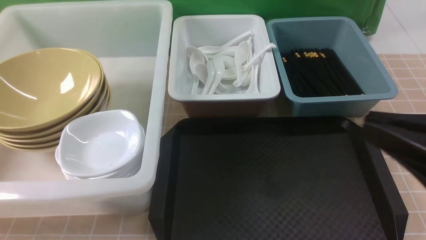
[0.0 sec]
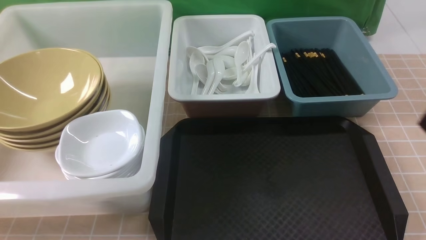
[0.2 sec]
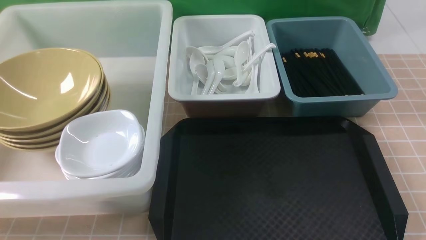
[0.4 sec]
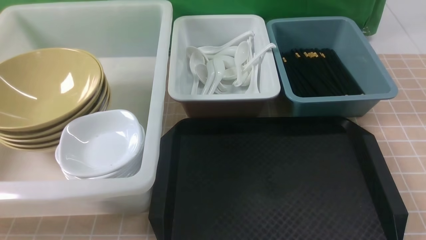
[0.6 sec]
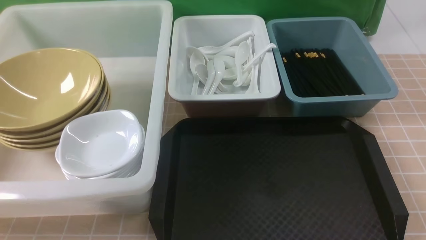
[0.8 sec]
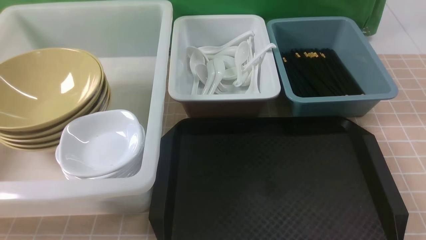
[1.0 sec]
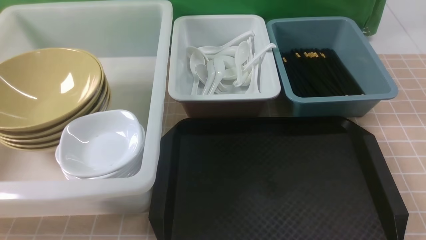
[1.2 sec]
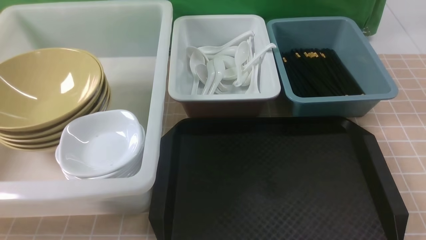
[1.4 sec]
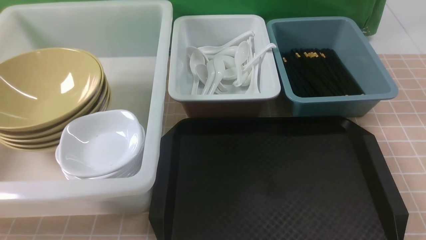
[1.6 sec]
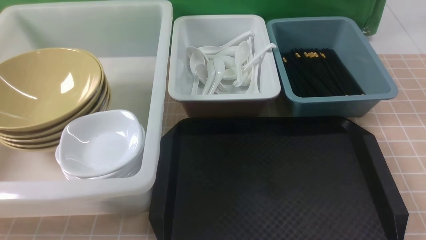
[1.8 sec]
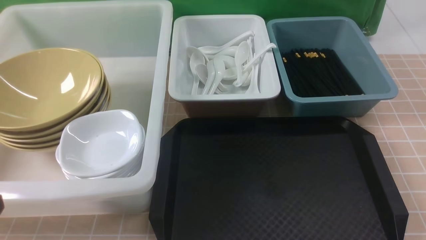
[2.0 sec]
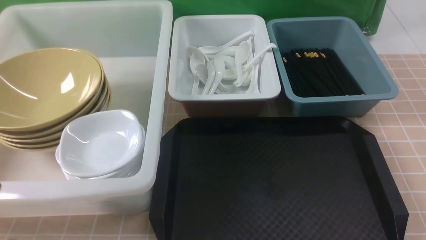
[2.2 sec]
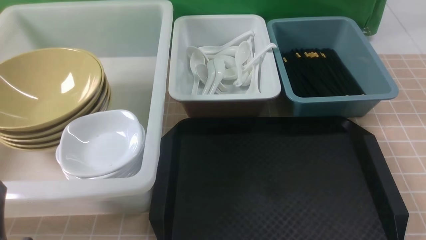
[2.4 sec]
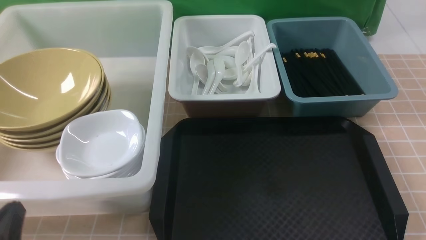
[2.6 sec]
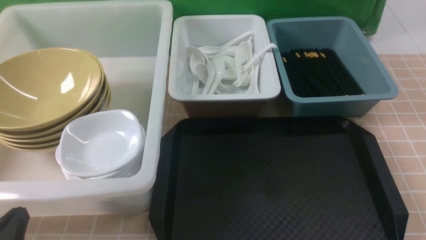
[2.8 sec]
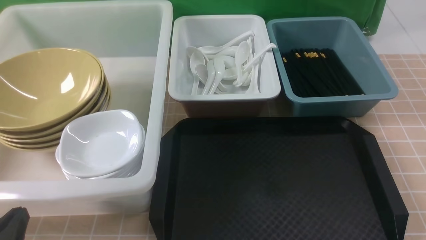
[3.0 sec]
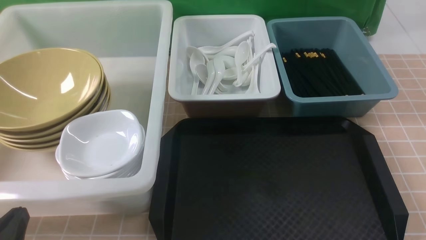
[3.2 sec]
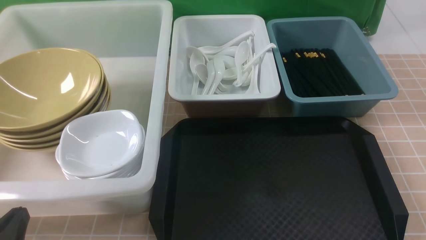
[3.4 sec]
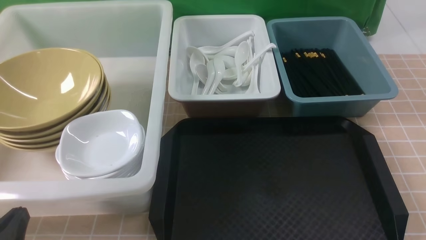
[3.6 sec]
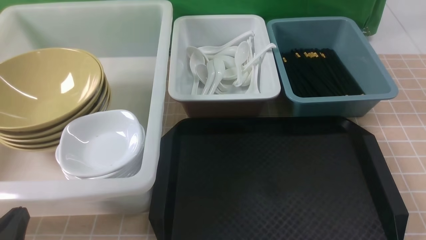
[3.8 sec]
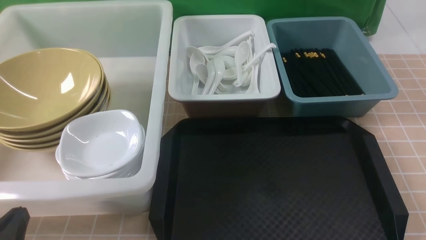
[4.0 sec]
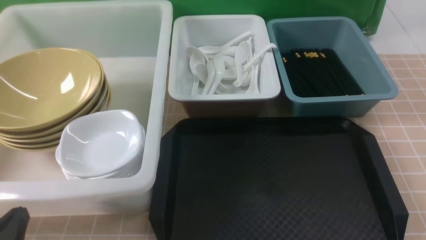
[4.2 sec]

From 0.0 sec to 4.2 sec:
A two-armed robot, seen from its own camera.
Task of the whole recording: on brown table put chopsticks spoon bowls plates into blue grey white boxes.
From 0.0 sec to 1.4 sec: The right gripper is displaced downward and to the right by roughly 20 cm.
From 1.4 sec to 2.8 sec: The left gripper heads downward, covering about 10 cm.
From 2.8 sec to 4.2 sec: Neither gripper changes place.

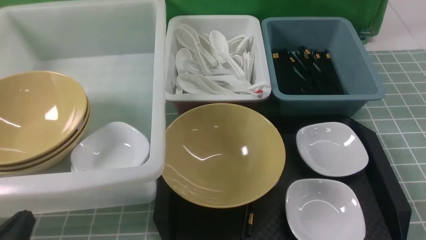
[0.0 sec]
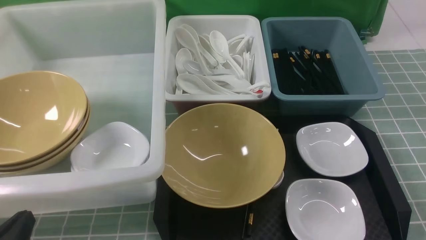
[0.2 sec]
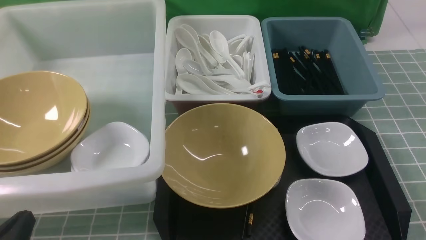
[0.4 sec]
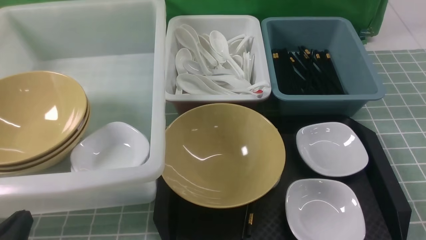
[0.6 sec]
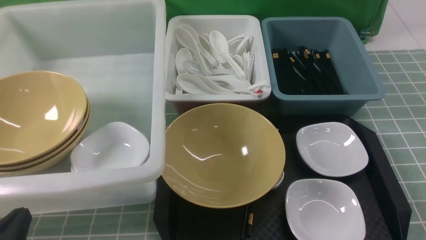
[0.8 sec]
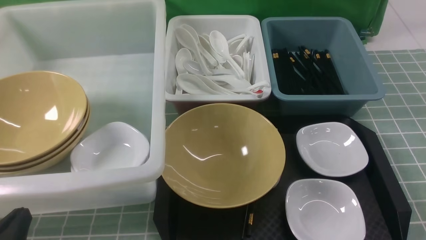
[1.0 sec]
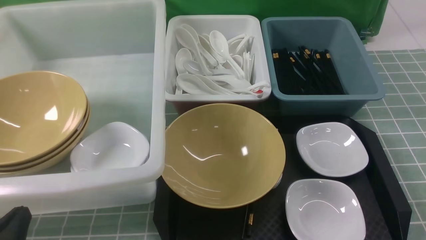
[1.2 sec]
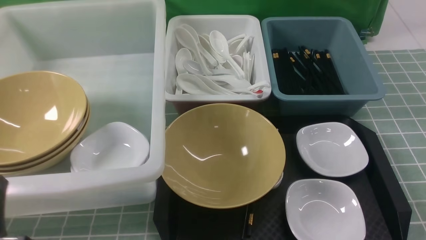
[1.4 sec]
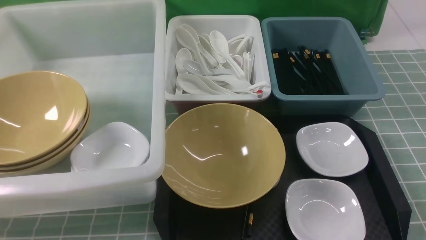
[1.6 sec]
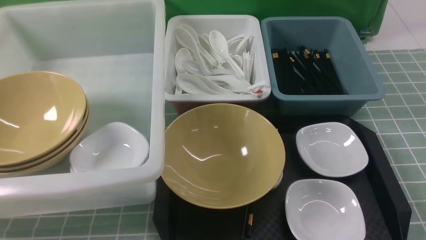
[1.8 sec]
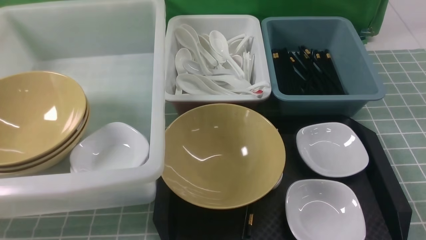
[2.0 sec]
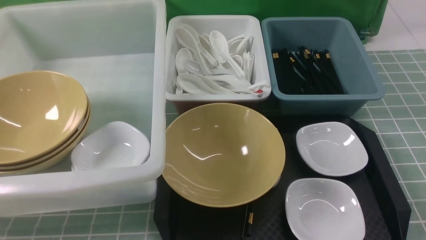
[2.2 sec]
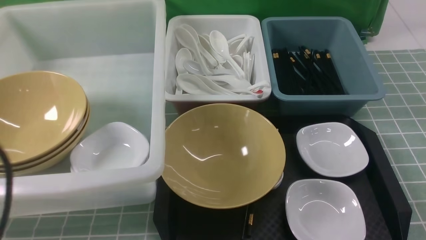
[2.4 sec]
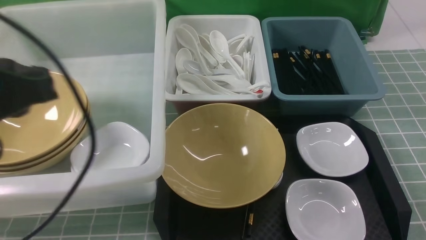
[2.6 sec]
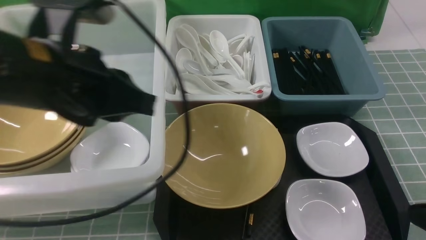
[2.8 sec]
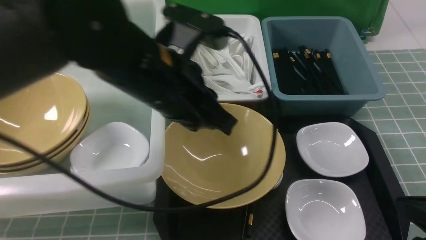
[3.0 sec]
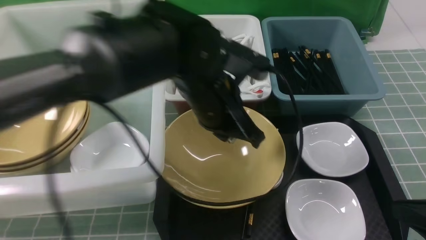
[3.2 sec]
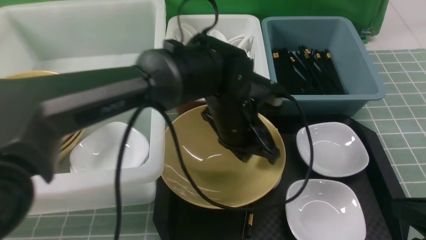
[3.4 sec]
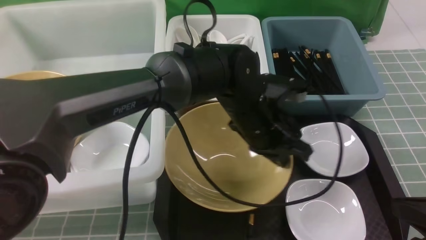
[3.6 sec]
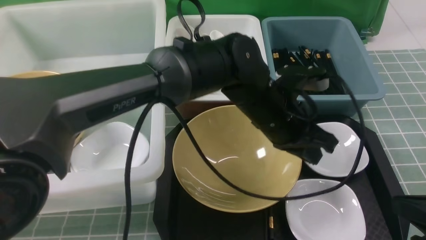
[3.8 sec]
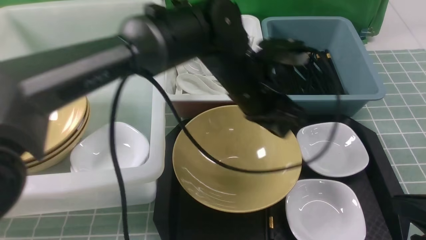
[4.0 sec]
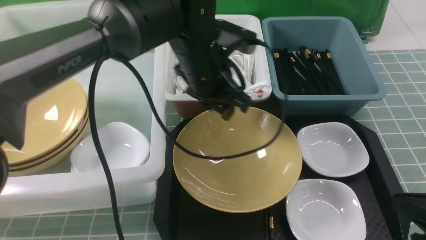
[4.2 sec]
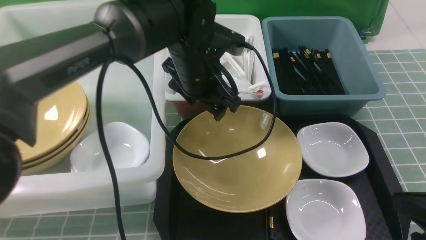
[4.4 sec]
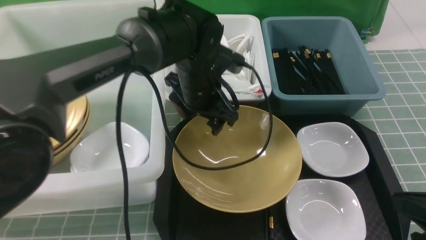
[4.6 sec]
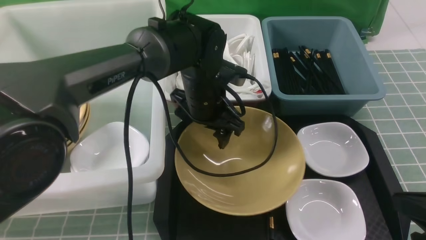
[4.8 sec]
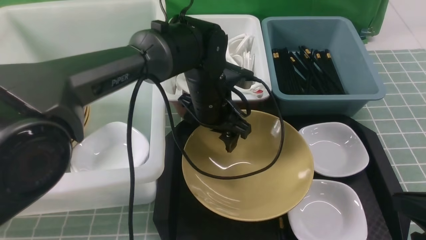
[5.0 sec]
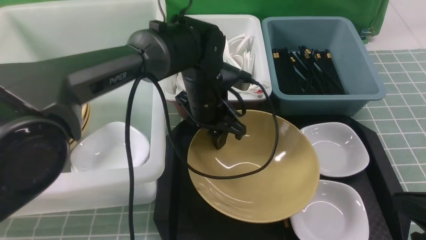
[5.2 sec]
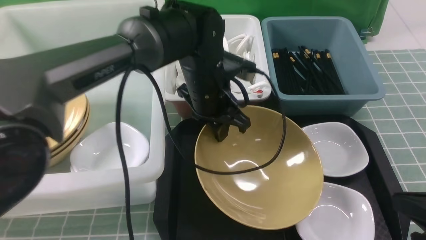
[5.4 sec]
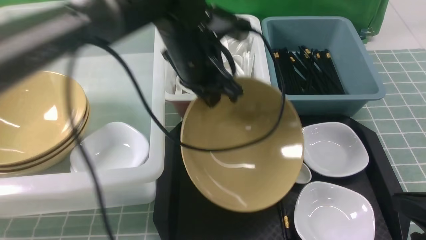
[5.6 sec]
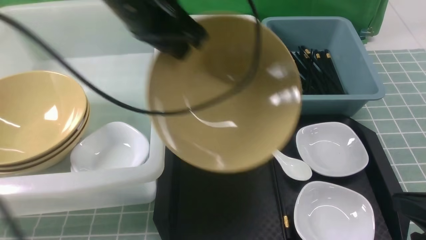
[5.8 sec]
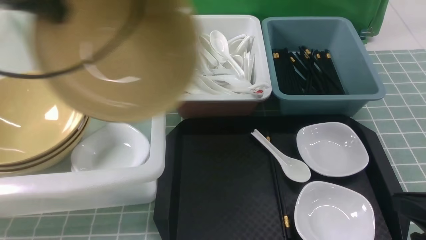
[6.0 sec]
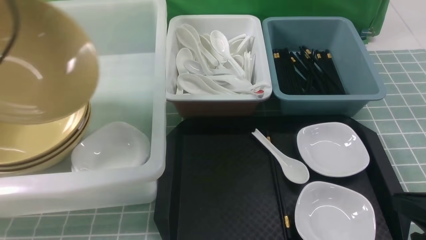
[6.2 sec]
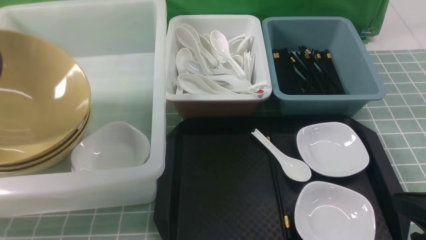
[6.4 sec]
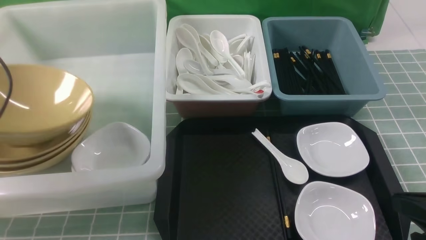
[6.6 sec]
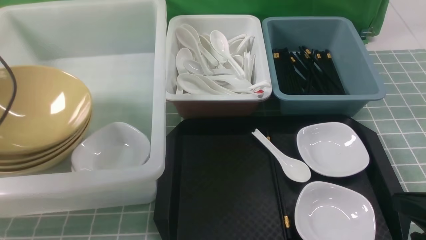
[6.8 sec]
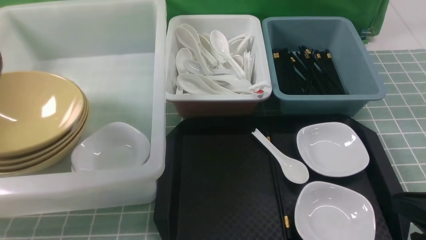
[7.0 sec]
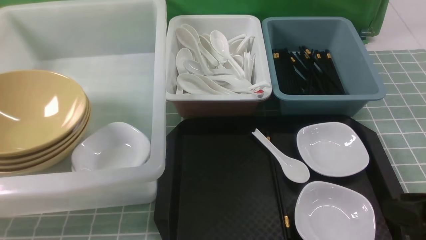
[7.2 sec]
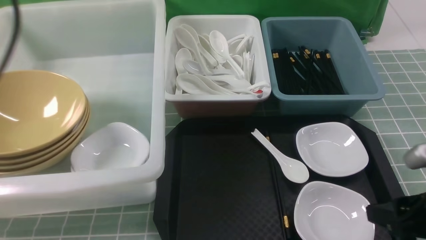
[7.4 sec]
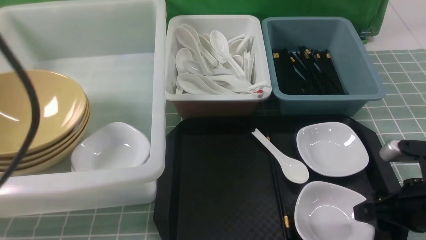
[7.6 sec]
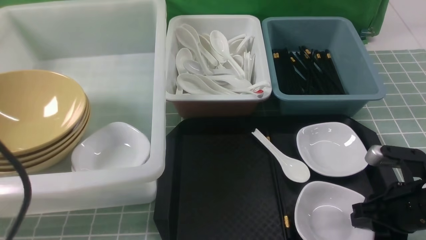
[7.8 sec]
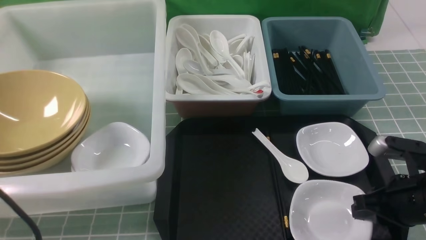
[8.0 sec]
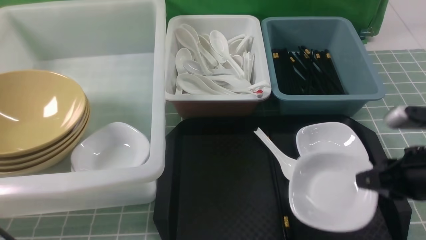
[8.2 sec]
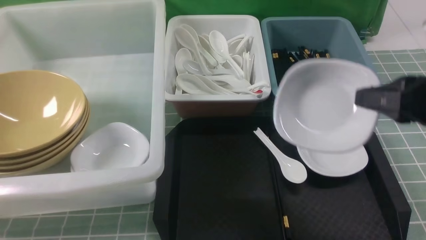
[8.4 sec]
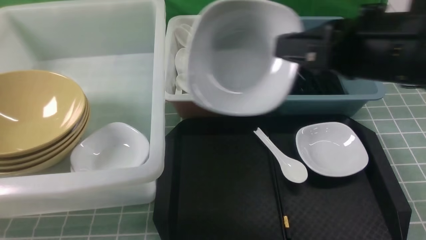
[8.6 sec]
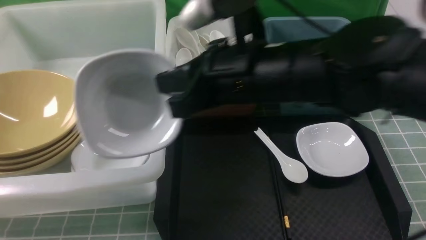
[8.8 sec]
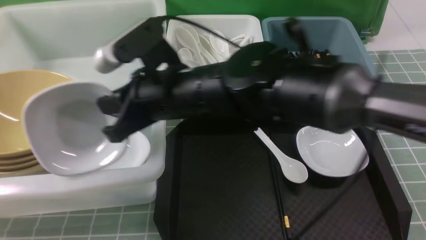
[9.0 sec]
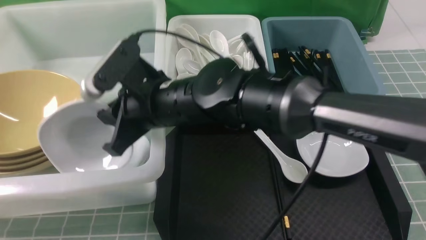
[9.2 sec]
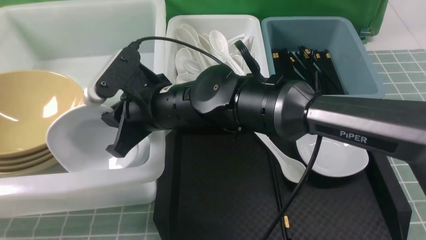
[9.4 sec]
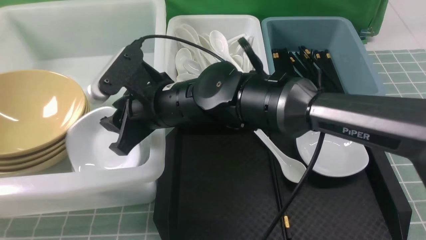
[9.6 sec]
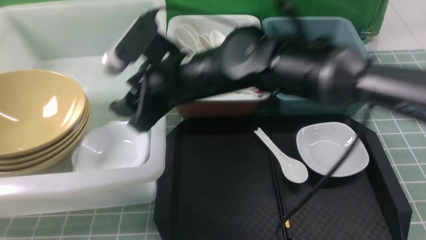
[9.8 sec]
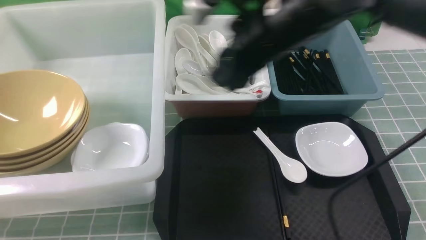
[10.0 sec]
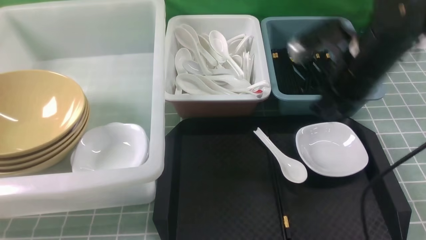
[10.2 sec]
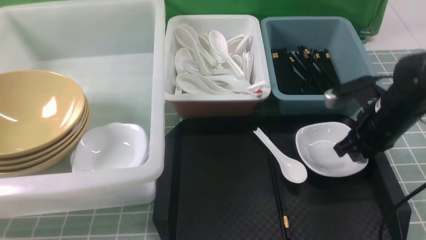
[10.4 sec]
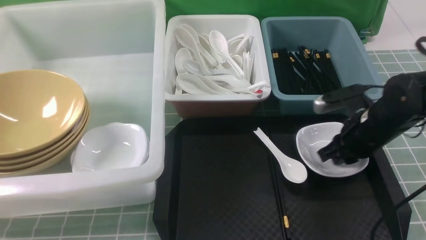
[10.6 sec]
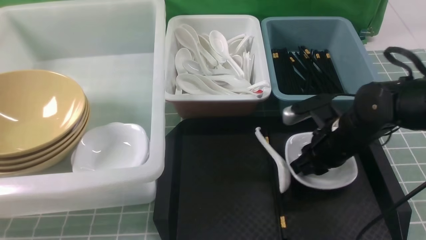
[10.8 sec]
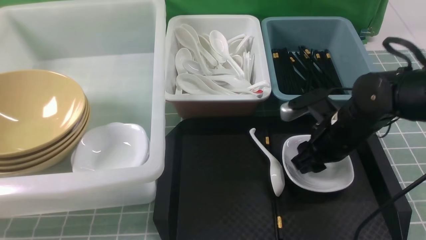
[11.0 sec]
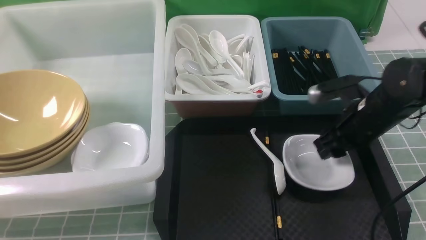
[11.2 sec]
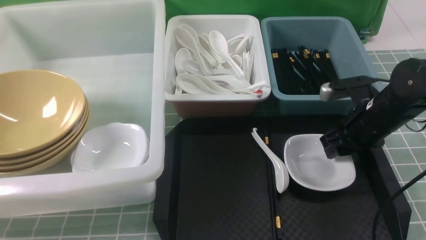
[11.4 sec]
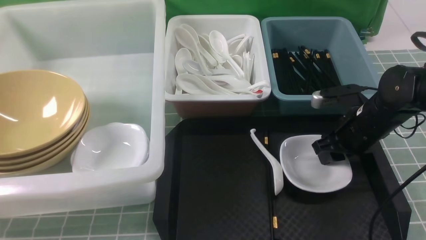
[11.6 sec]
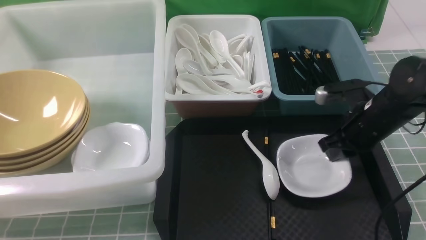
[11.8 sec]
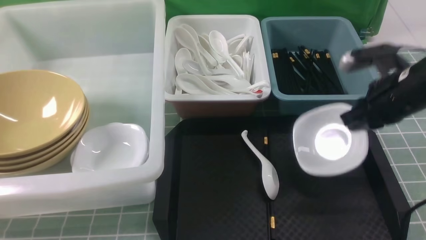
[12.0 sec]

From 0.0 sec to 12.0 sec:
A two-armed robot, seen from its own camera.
Task of the whole recording: on blue table put chopsticks spoon bowls plates into blue grey white boxes.
Step, from 0.0 sec to 5.4 sec: use the left arm to grab the yellow noodle bowl on the left.
Step, from 5.6 sec to 7.0 sec: use the left arm to put the noodle bowl into the large storage box on the left.
Step, from 7.2 sec to 8.2 sec: use the right arm to grab the plate.
Step, from 8.4 sec to 9.8 sec: use the right arm to put the plate into the large storage box on the left.
Step, from 10.0 sec to 11.8 sec: use the right arm to grab the plate.
From 0.0 sec to 1.6 sec: The left gripper goes about 5 cm upward.
From 1.6 sec to 3.0 sec: The right gripper goes about 5 cm forward, goes upward and returns, roughly 10 cm each way, and closes up; the left gripper is displaced forward and to the right by roughly 30 cm.
From 3.0 sec to 4.4 sec: The left gripper goes roughly 10 cm forward and downward, reaches approximately 10 cm to the right, then returns, and opens its fingers.
From 4.4 sec to 6.0 sec: The left gripper shifts about 30 cm to the left and upward, and closes up.
From 6.0 sec to 7.6 sec: The right gripper travels forward and downward by some 10 cm, and opens; the left gripper travels backward by approximately 20 cm, and opens, then closes once more.
From 7.6 sec to 9.0 sec: The right gripper travels to the left by approximately 30 cm, and closes; the left gripper goes some 15 cm downward and backward.
From 9.0 sec to 10.4 sec: The right gripper is displaced to the right by roughly 25 cm, and opens, then closes again.
From 10.4 sec to 12.0 sec: The right gripper heads upward, covering approximately 5 cm, and opens, then closes once more.
